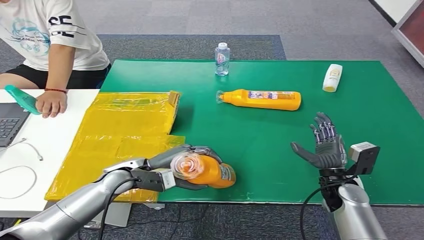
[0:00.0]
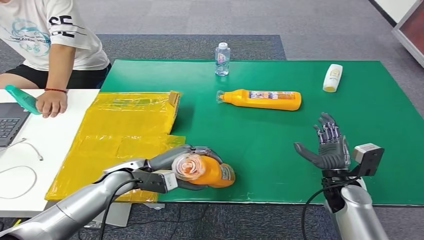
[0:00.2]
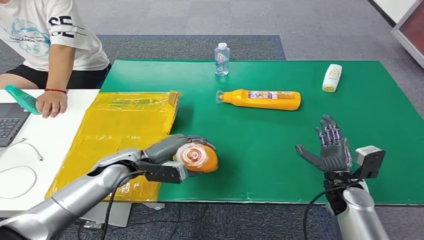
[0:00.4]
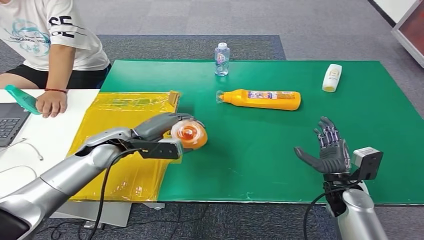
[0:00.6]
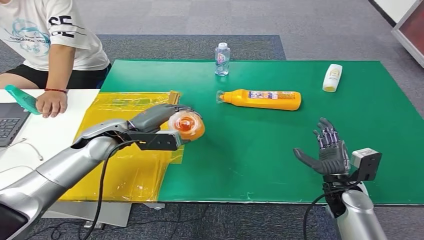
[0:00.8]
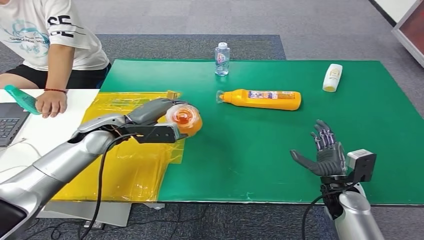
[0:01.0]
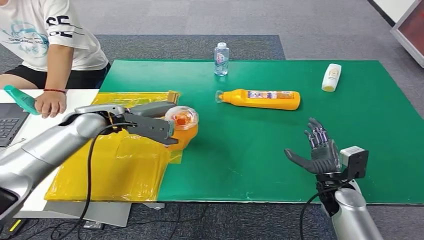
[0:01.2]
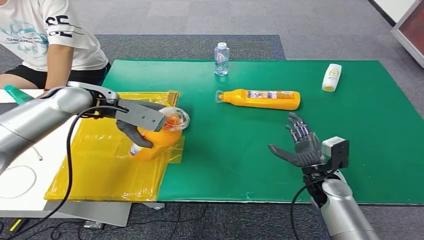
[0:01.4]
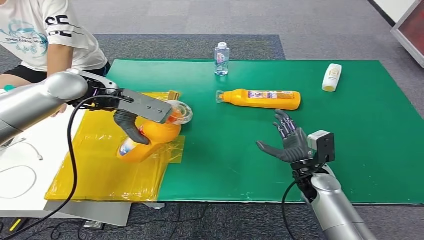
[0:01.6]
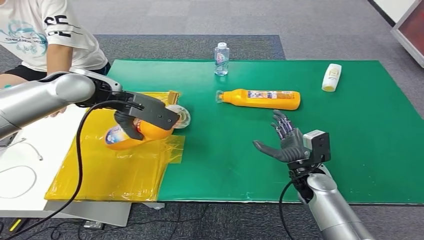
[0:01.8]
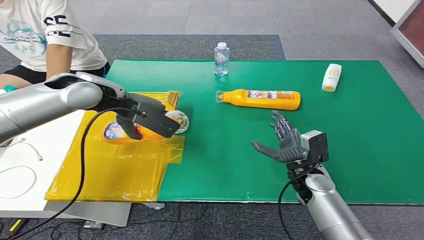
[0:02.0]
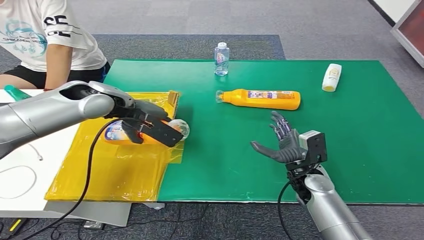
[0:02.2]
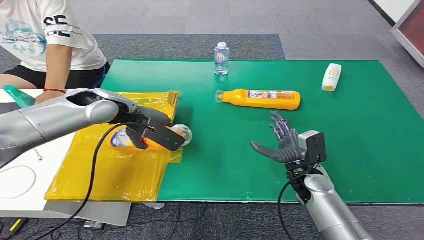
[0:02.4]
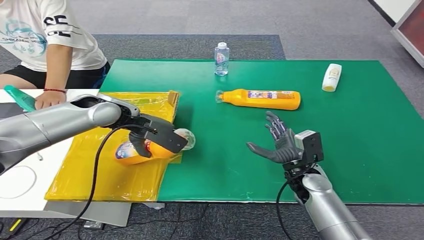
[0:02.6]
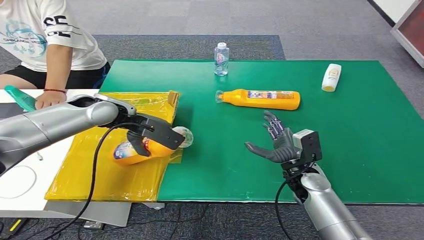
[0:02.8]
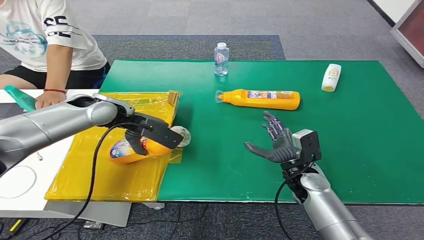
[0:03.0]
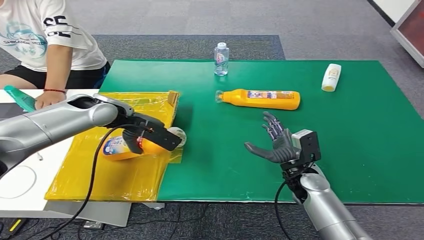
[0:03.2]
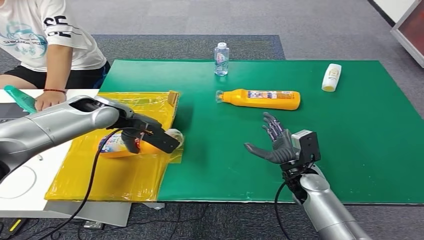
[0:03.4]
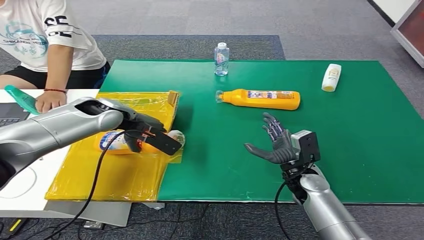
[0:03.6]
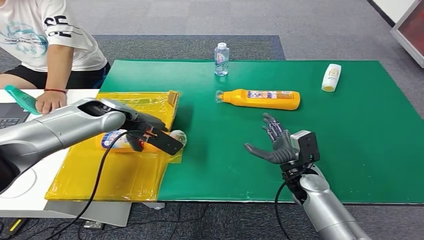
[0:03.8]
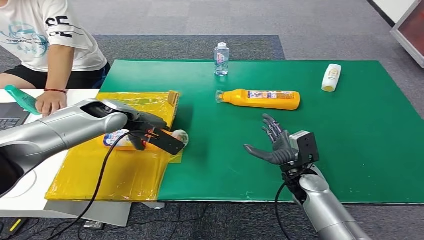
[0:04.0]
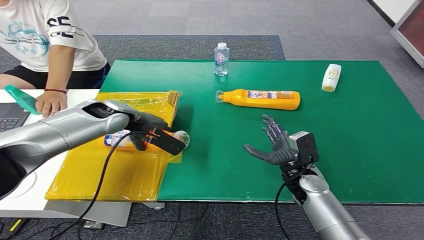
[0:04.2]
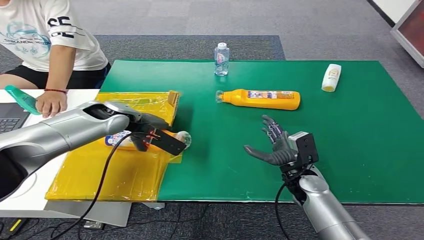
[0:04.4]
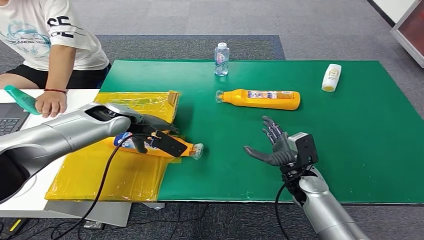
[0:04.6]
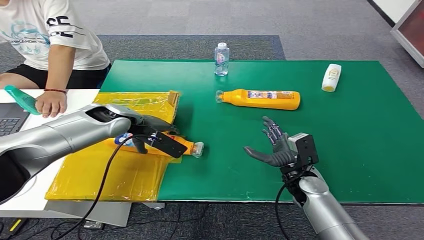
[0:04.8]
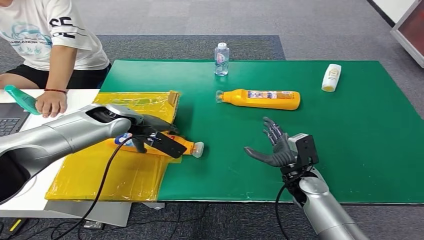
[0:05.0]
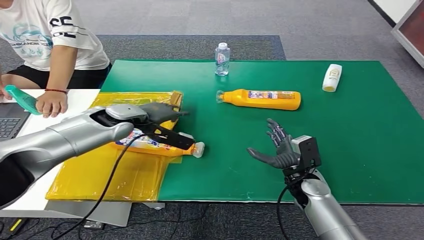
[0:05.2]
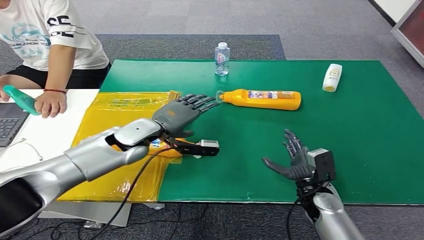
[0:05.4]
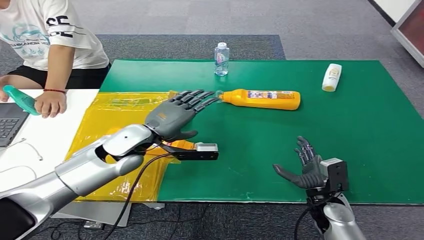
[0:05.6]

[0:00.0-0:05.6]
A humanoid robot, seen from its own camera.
Step, 0:00.0 to 0:05.6: Turn the bottle to the front side.
0:01.4 to 0:02.8: The left hand changes place by approximately 5 cm.
0:02.8 to 0:04.2: The hands stay close to where they were, moving slightly.

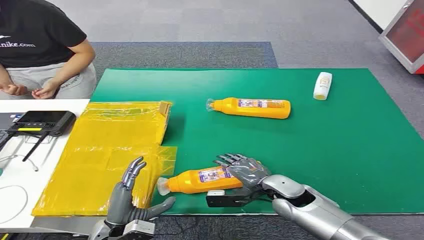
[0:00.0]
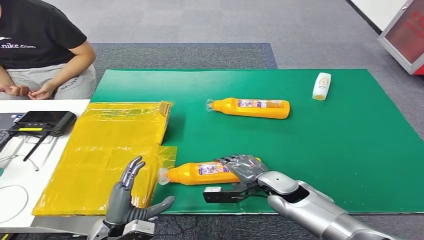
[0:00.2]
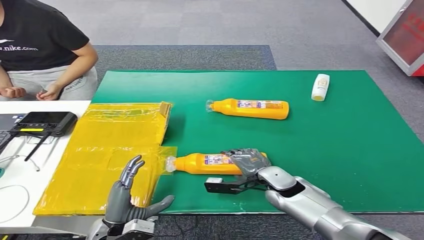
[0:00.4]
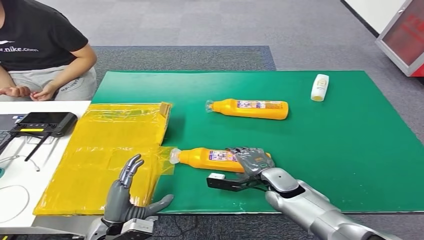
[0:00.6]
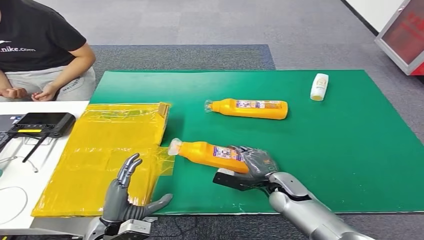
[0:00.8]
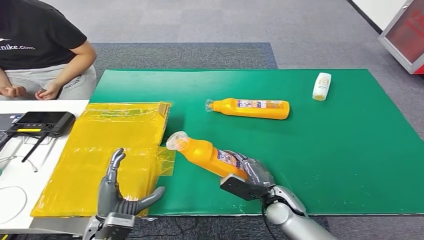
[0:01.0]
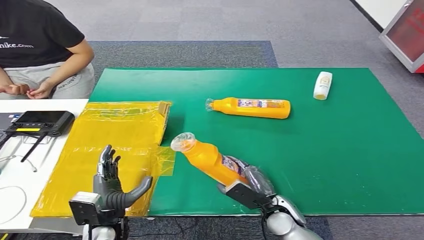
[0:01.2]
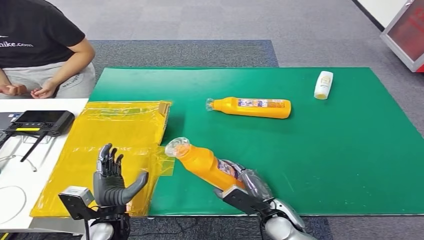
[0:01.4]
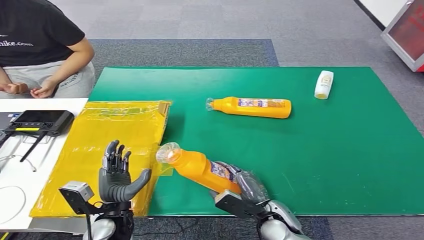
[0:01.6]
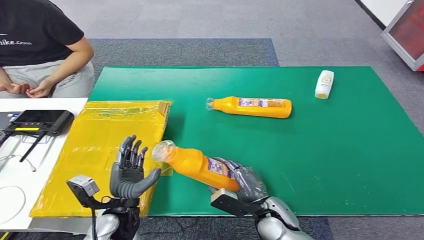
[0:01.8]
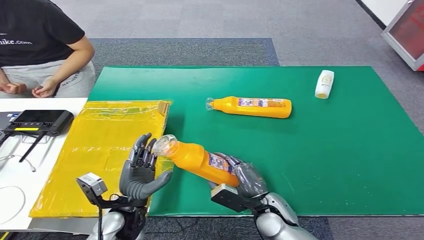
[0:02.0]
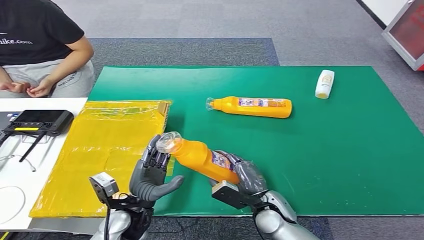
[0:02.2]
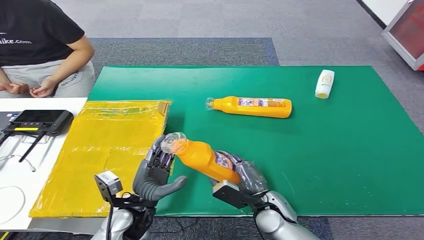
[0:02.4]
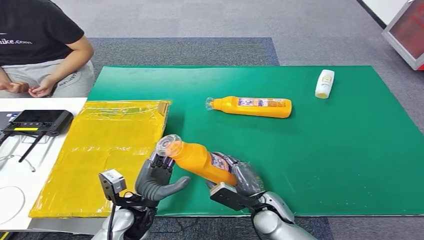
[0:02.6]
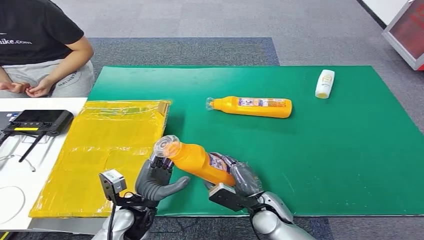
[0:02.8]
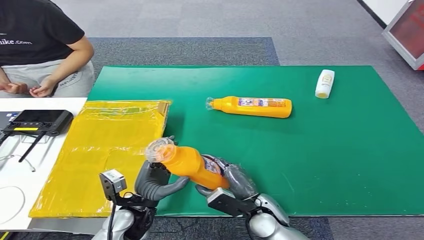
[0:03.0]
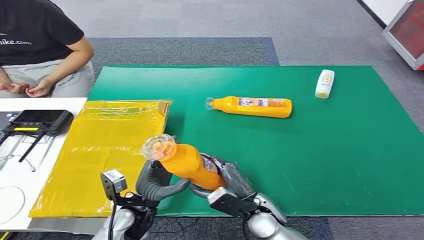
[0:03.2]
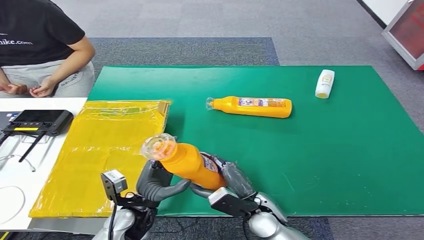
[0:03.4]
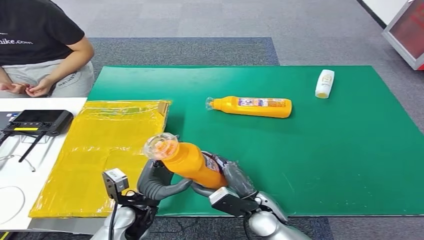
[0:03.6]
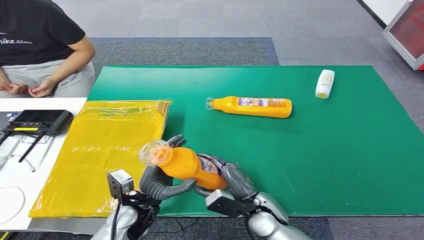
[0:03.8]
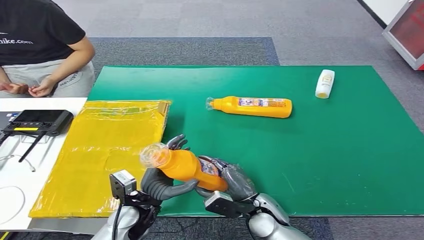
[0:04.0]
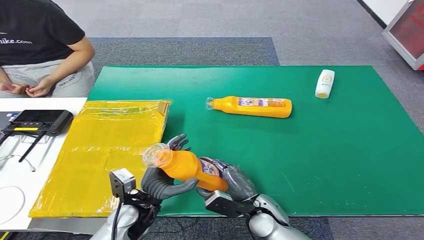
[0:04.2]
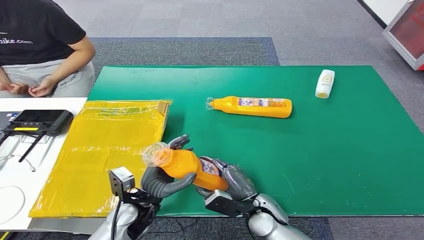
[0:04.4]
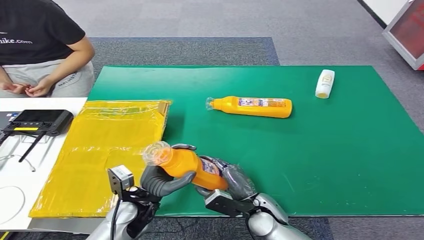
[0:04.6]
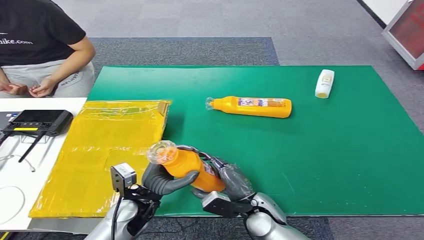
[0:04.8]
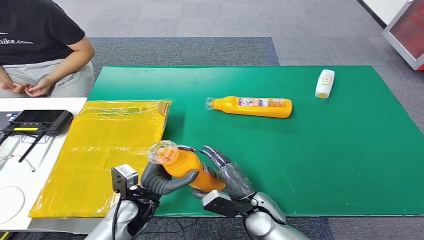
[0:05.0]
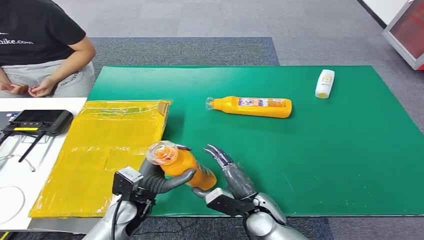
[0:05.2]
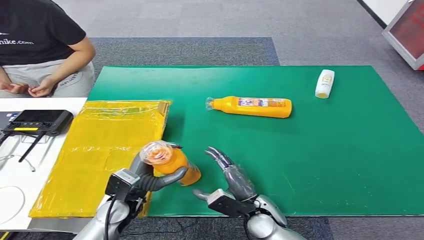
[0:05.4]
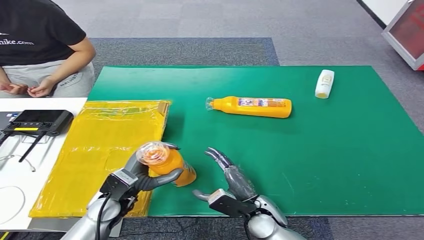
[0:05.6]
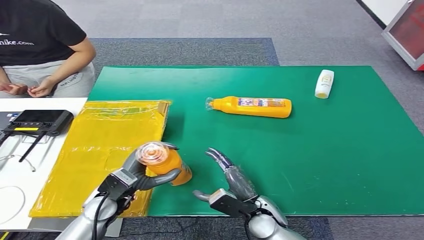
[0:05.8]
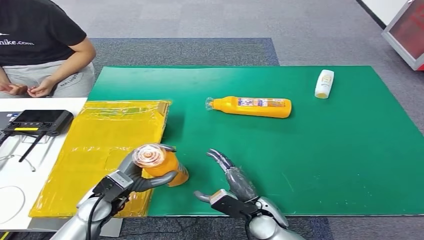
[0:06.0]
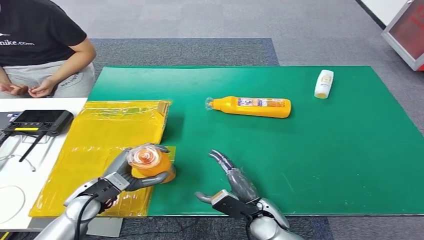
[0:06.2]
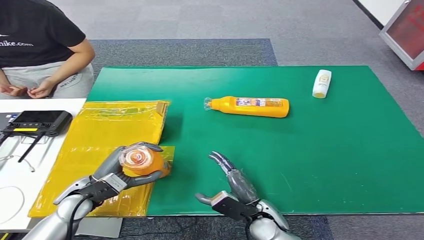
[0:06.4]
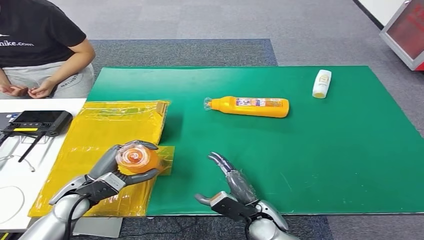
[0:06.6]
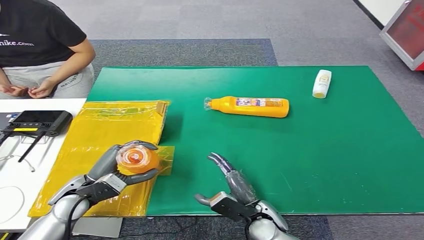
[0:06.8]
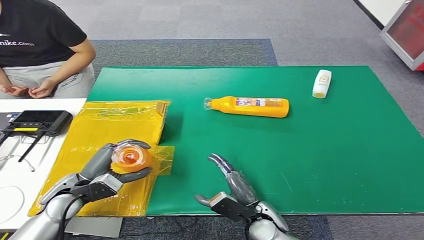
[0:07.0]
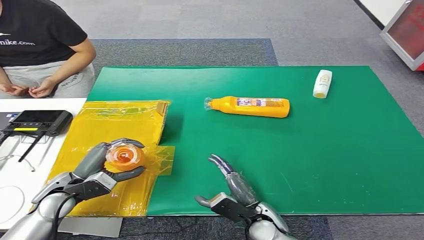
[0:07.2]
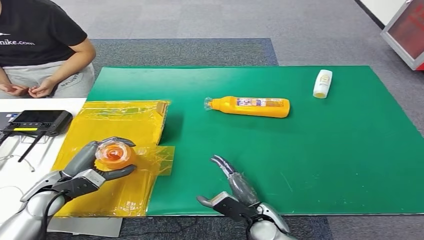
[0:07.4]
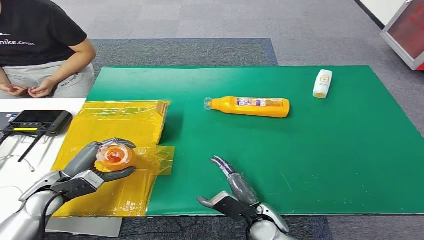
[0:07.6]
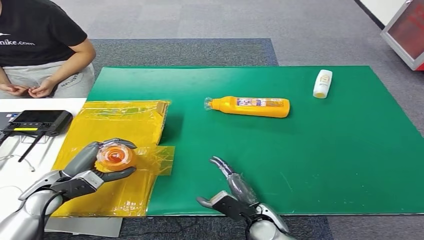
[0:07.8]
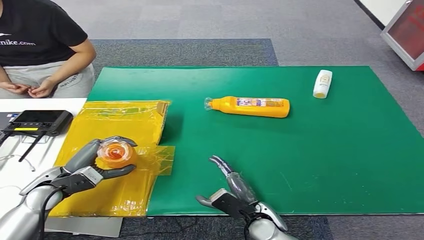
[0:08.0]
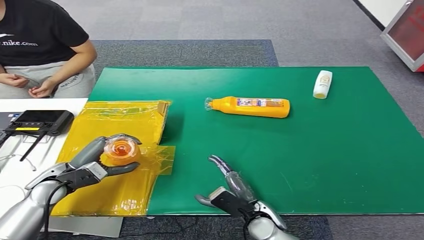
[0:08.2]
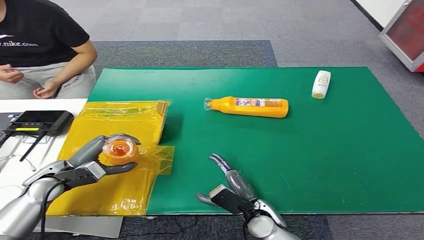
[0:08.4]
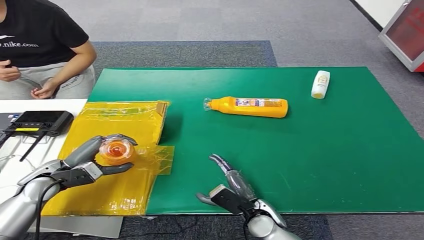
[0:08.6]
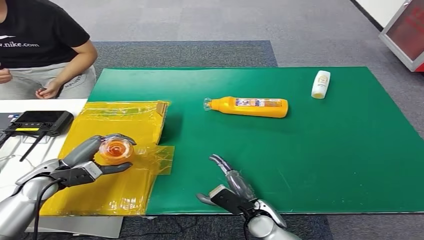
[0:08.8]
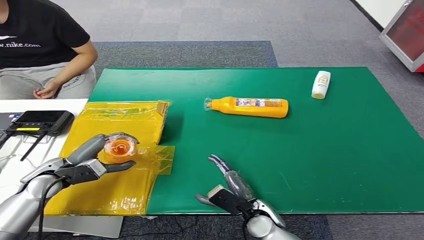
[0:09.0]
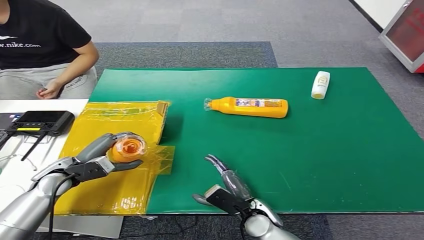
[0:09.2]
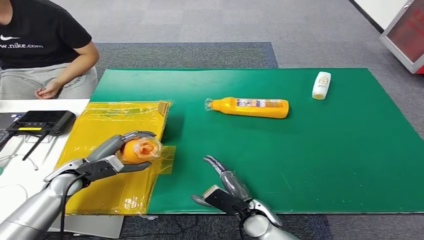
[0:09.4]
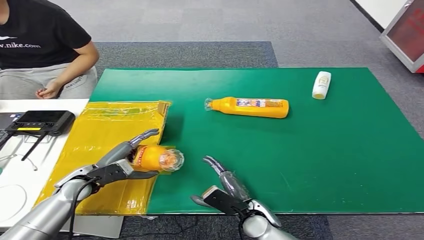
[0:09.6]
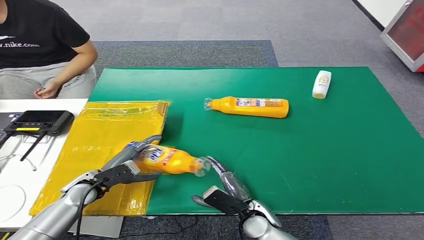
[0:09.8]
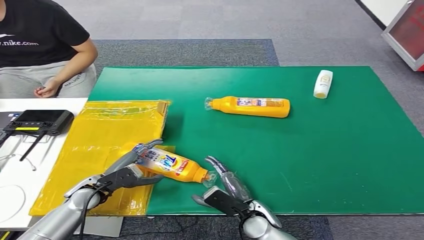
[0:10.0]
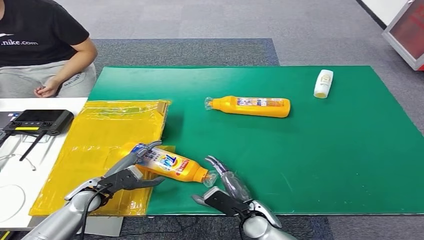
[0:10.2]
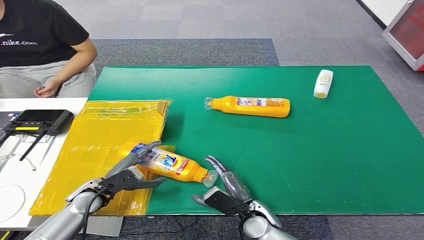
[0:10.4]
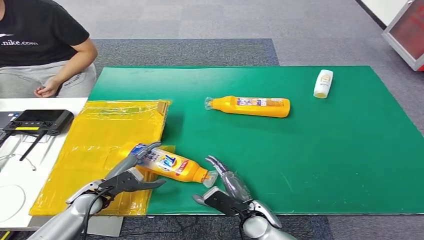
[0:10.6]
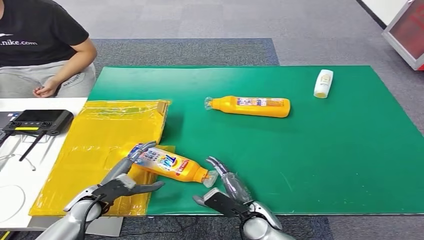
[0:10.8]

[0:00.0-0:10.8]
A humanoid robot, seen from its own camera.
Step, 0:00.0 to 0:01.4: Pick up the bottle from the table.
Step, 0:01.6 to 0:10.8: Turn the bottle to the front side.
0:03.0 to 0:04.6: The hands make only small movements.
0:04.6 to 0:06.2: The left hand is displaced to the left by roughly 10 cm.
0:06.2 to 0:07.8: The left hand is displaced to the left by about 10 cm.
0:07.8 to 0:09.2: The hands stay close to where they were, moving slightly.
